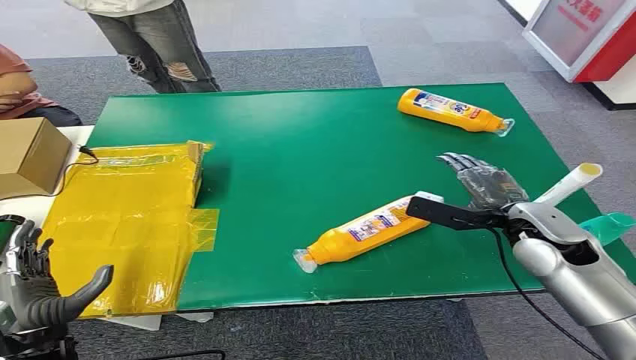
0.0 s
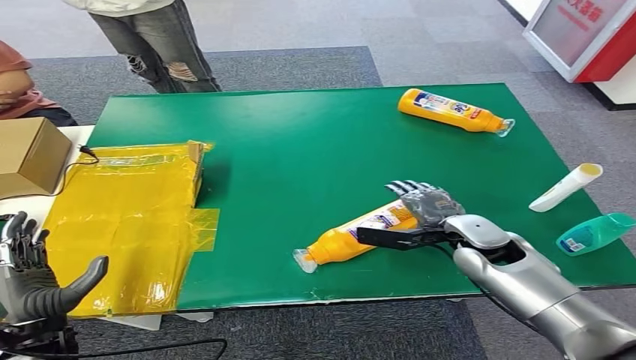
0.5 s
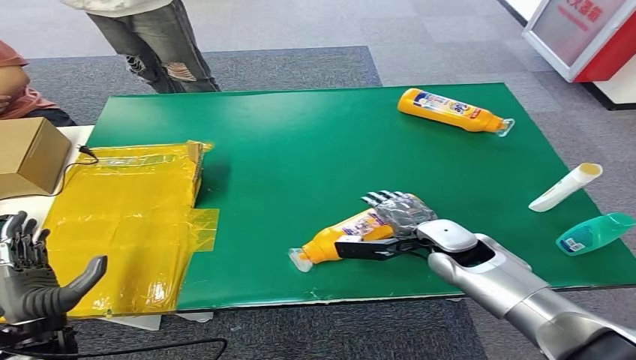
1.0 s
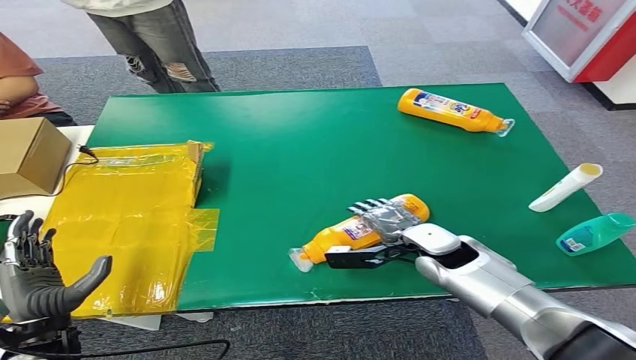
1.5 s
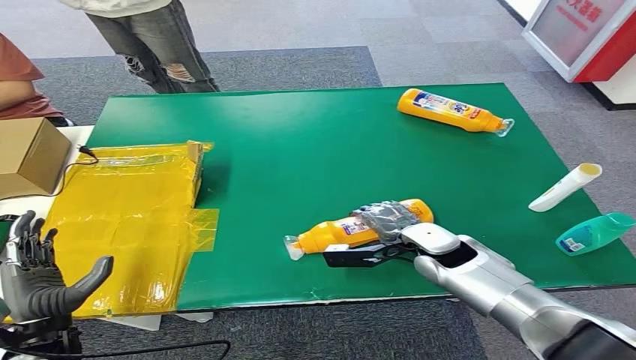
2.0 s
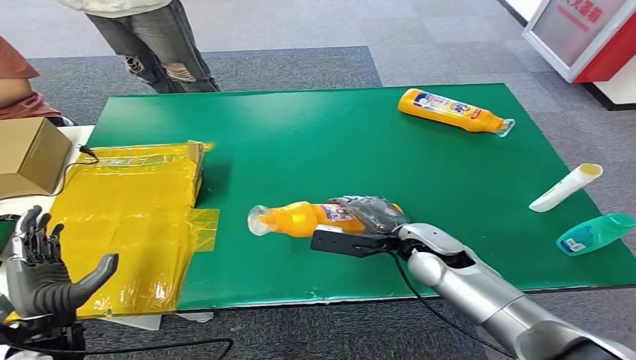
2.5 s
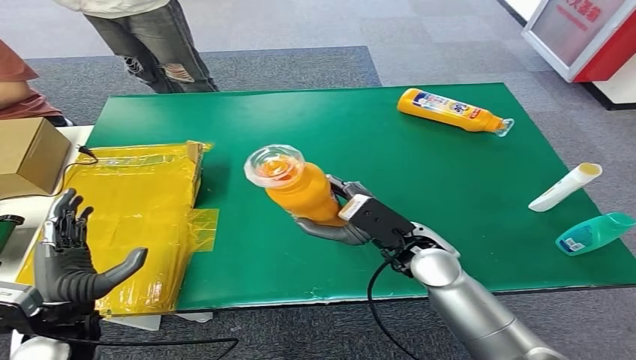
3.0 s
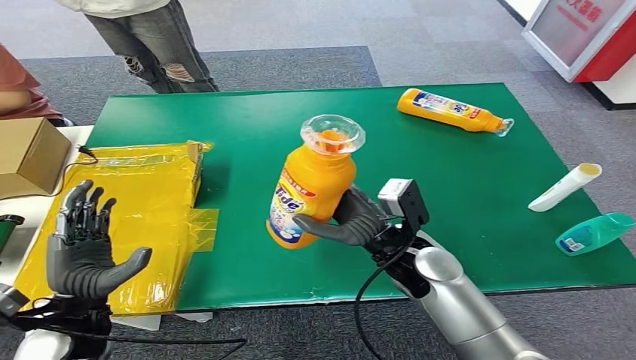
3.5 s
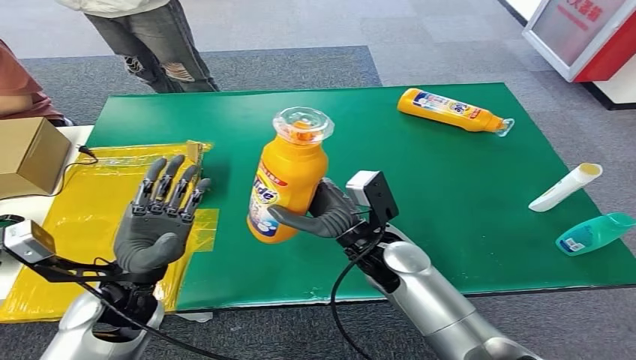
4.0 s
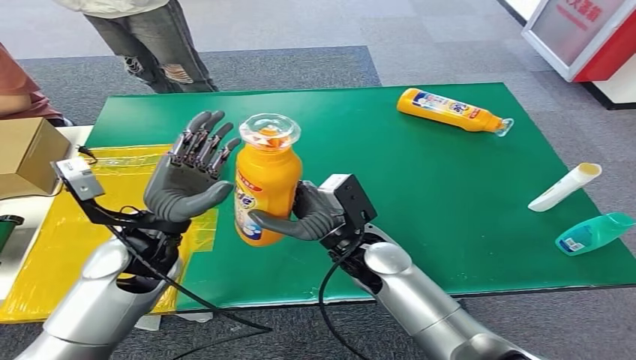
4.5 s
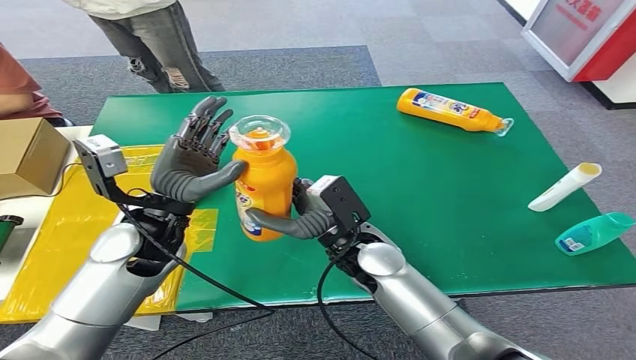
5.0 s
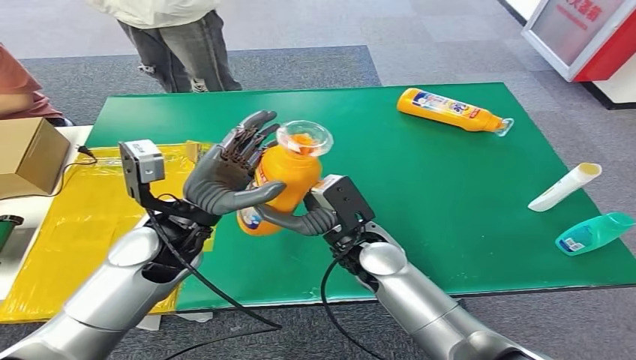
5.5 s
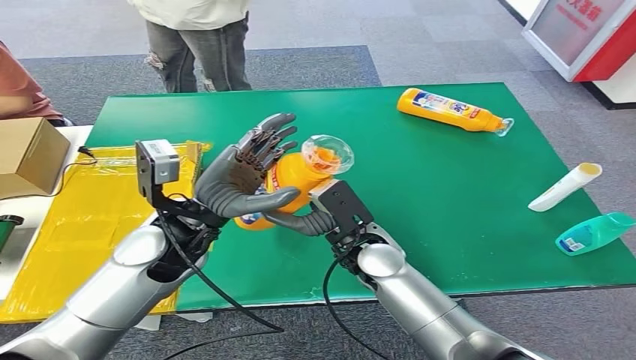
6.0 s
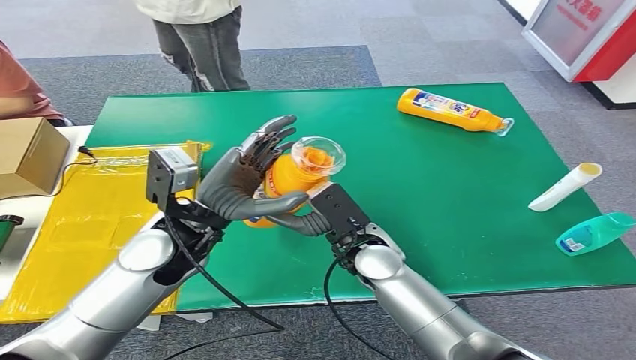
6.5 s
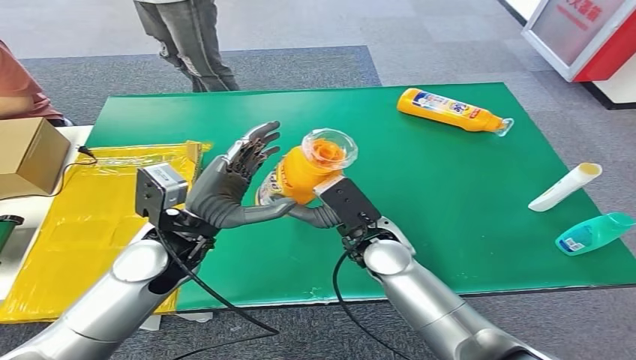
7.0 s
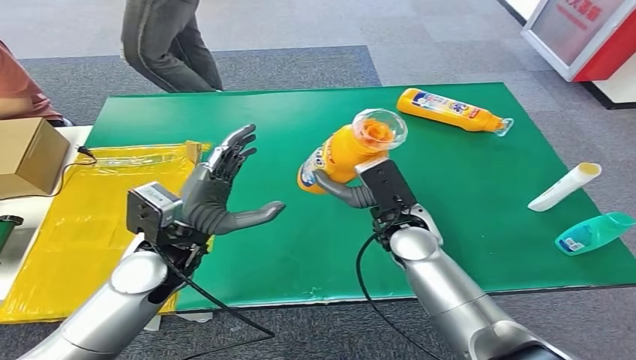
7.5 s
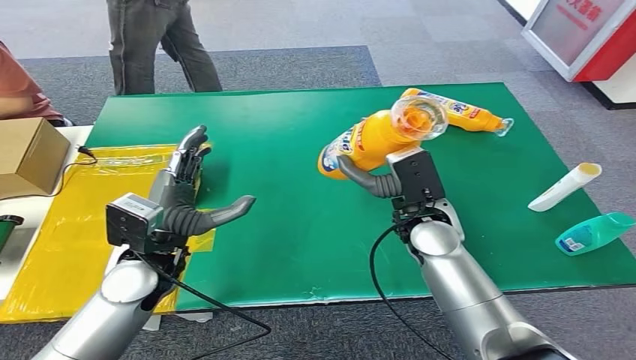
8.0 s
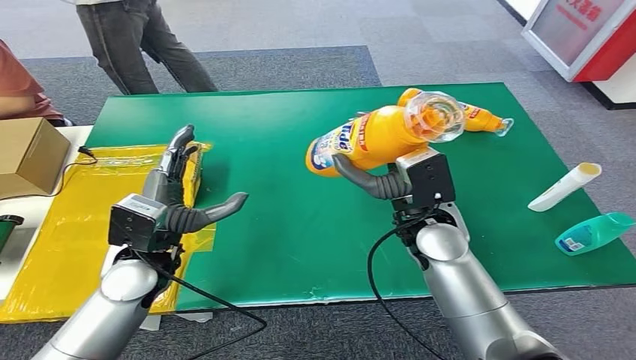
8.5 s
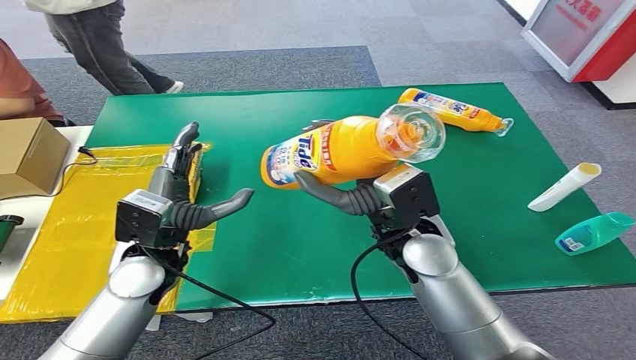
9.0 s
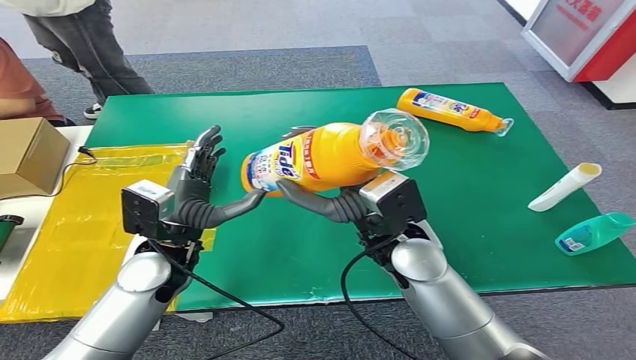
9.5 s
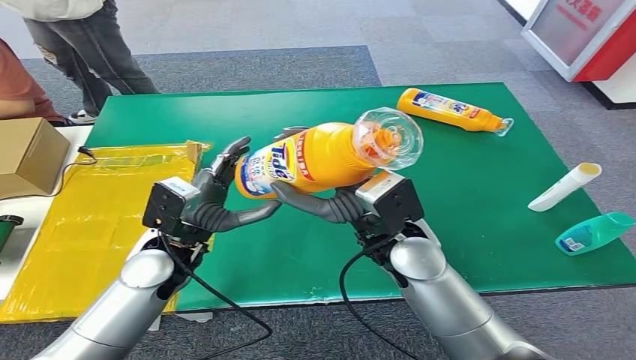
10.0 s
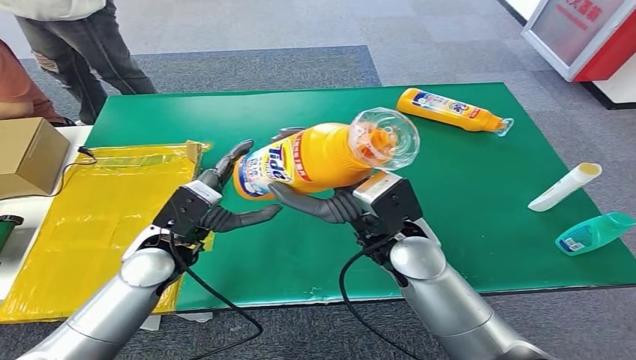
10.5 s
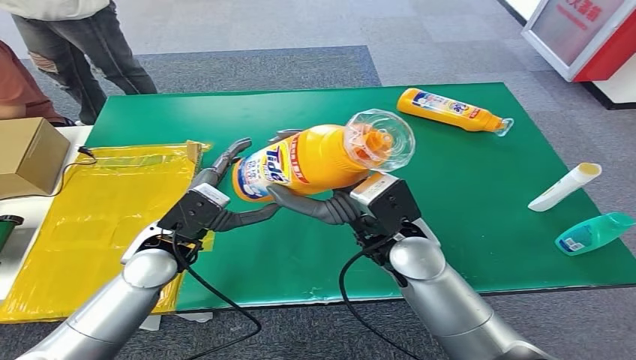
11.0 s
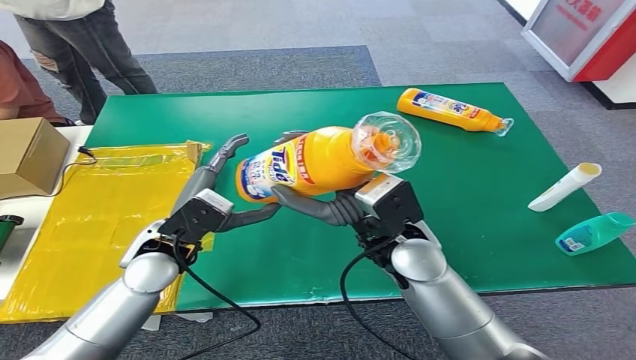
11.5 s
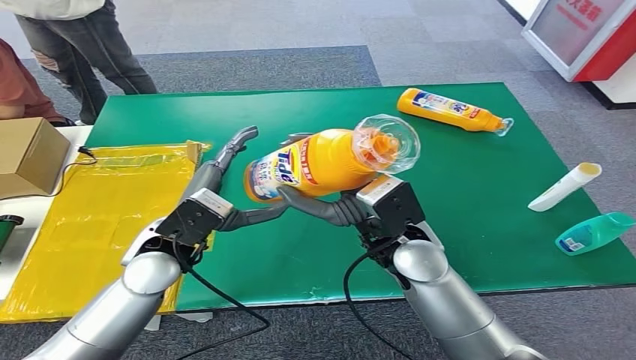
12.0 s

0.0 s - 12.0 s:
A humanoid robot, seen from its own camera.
Step, 0.0 s - 3.0 s: Pick up the bottle from the table.

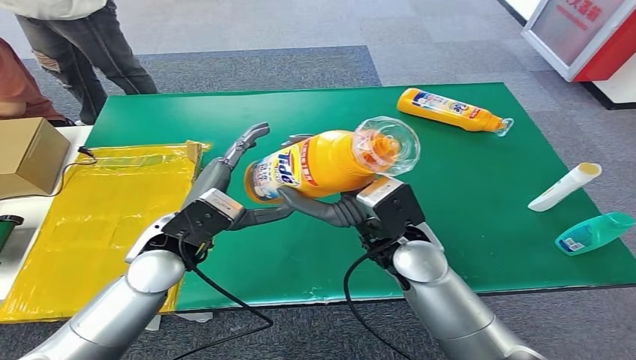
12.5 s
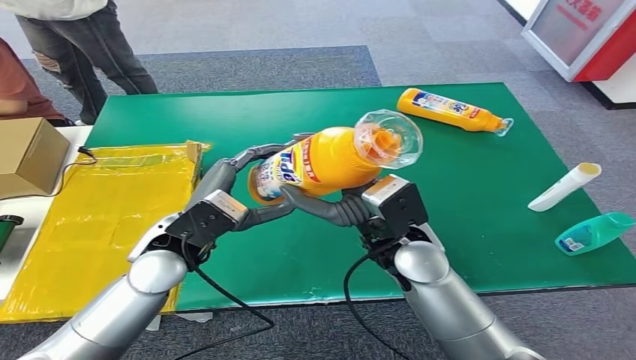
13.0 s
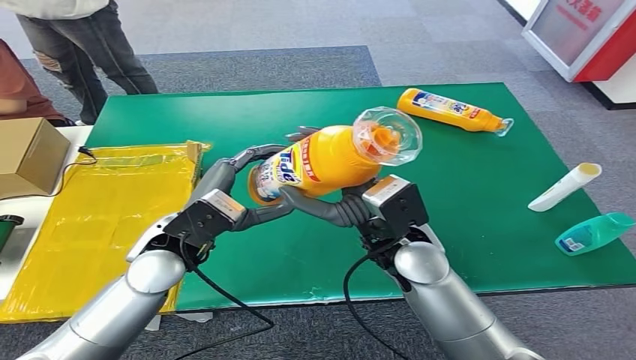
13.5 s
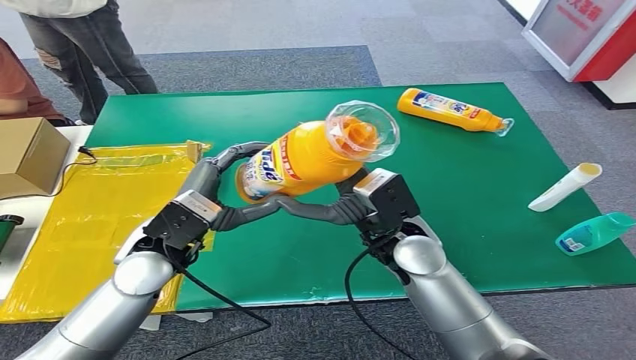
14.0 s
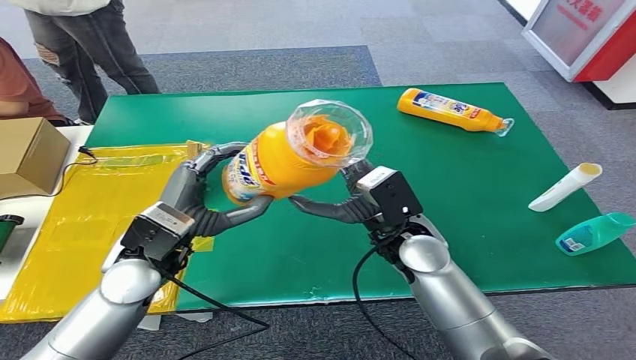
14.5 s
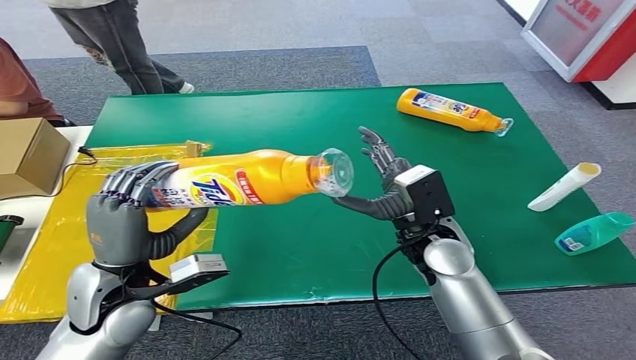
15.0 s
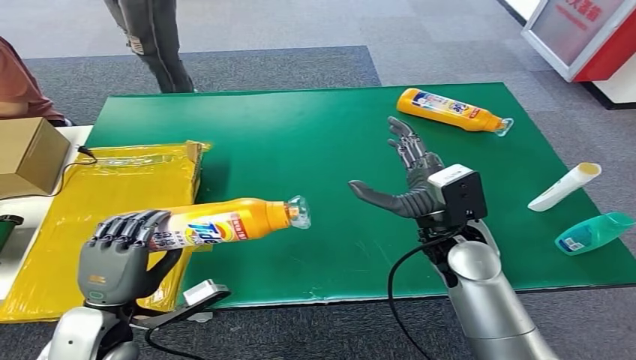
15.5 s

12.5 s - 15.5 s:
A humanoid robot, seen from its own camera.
Step, 12.5 s - 15.5 s: Turn the bottle to the front side.
12.5 s - 14.0 s: The hands make only small movements.
